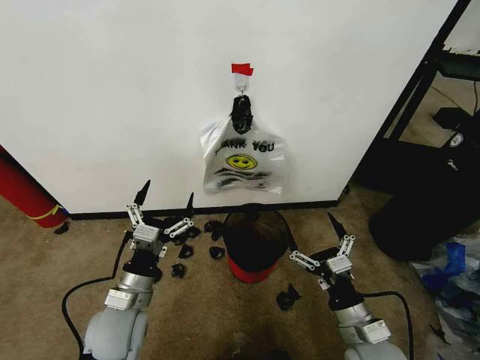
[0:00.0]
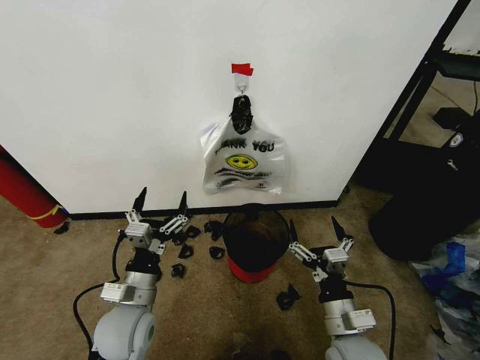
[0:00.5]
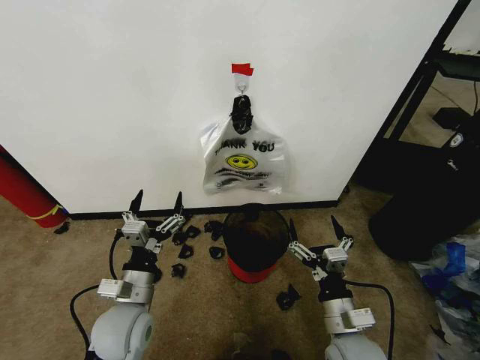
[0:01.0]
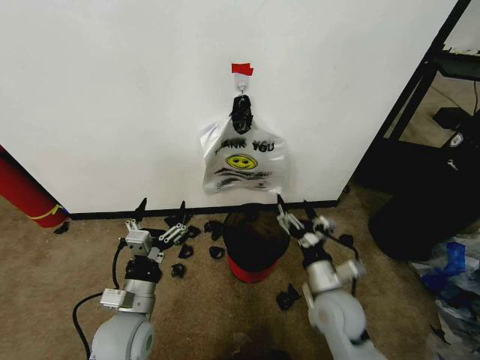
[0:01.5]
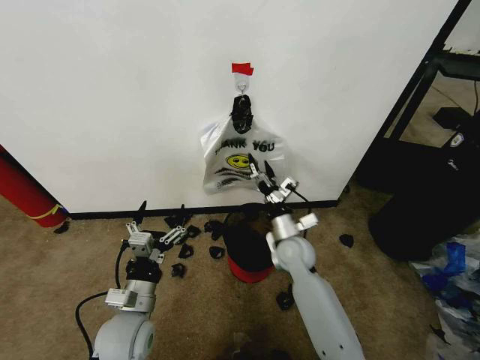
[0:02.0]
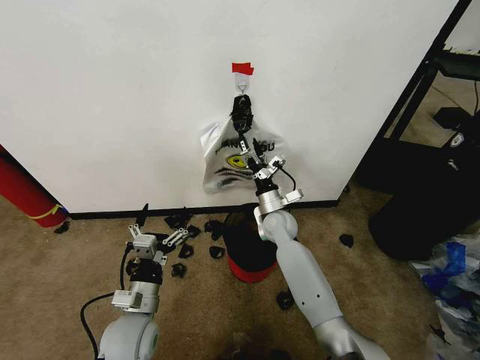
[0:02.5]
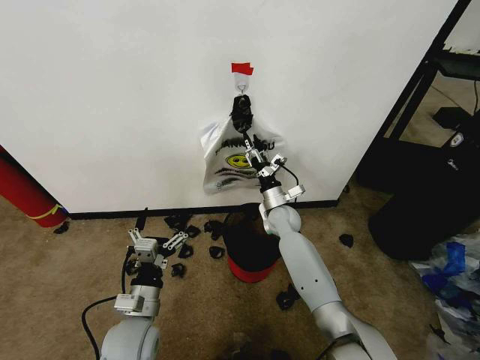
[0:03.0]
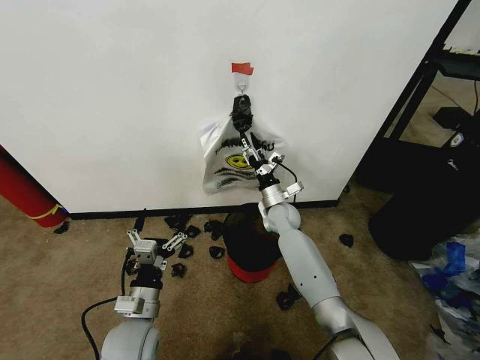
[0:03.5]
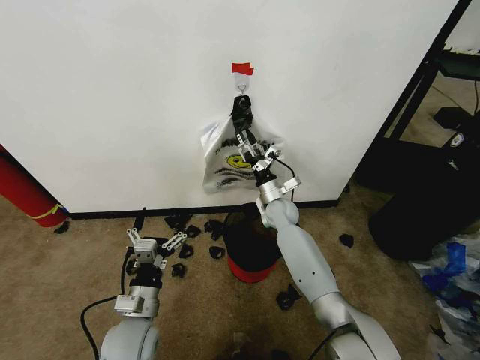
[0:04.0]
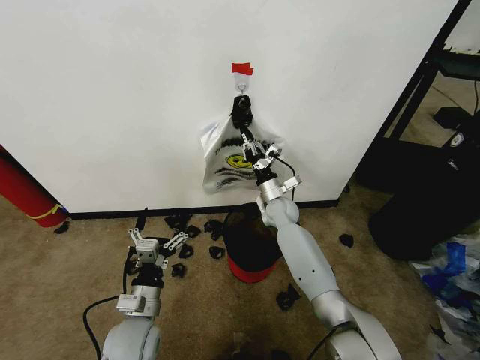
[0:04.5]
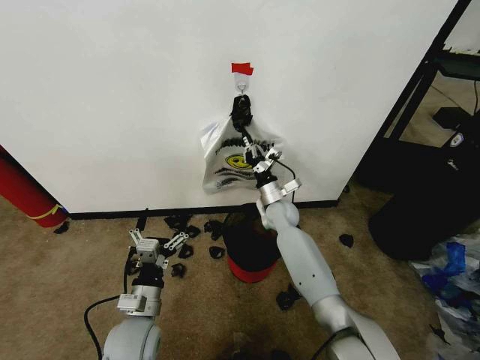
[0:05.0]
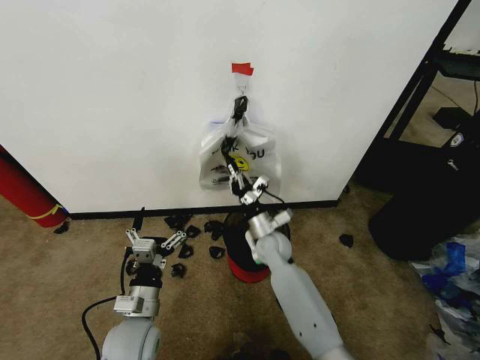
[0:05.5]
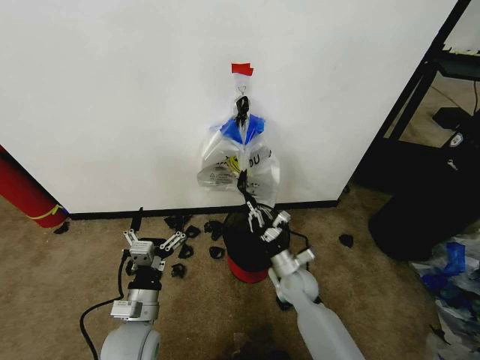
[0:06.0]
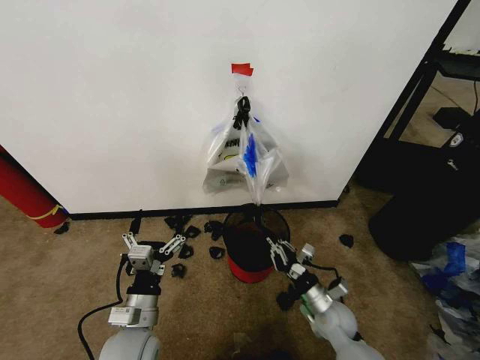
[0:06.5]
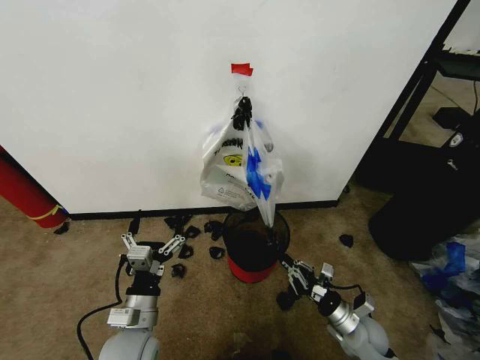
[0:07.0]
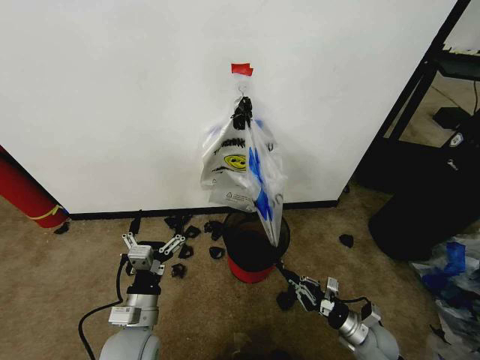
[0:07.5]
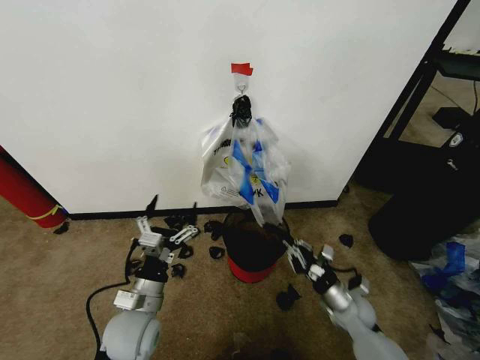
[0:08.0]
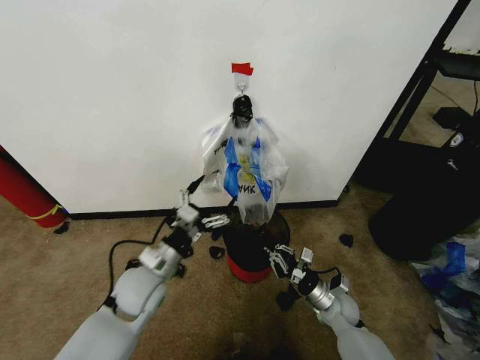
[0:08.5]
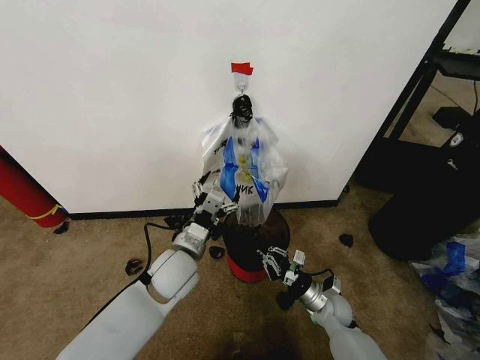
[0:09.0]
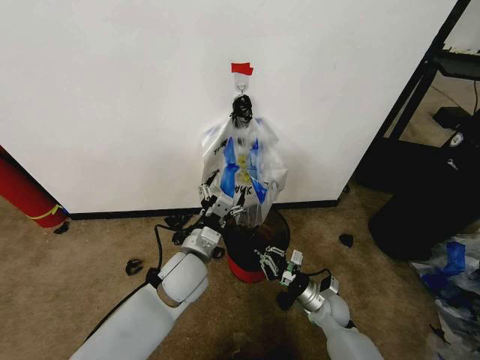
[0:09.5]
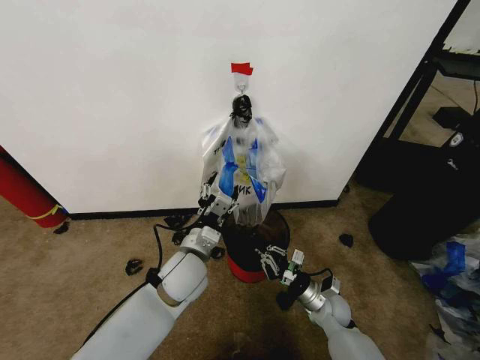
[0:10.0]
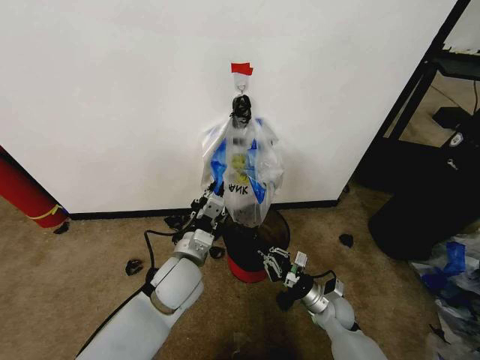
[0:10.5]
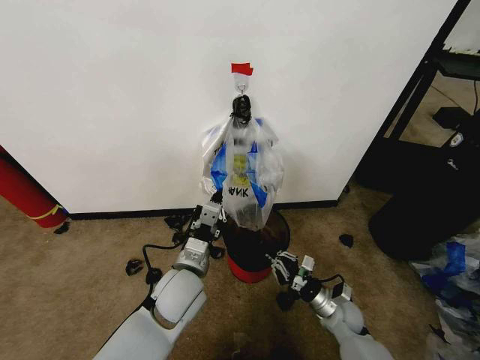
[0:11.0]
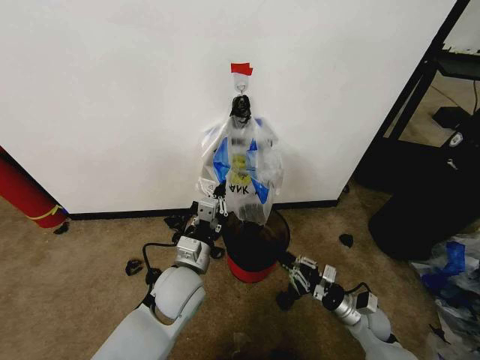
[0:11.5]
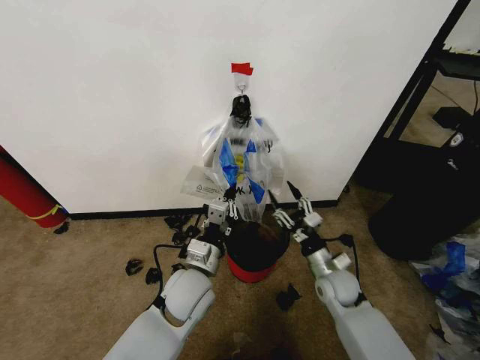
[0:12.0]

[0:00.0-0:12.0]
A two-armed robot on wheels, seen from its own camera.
Task of the whole recording: Pick up the garbage bag from the wall and place it over the trash bin.
0:02.0 to 0:04.0: The right gripper moves forward, approximately 10 cm, and closes up.
0:04.0 to 0:06.0: The right gripper shifts some 20 cm backward and downward, and closes its fingers.
0:06.0 to 0:08.0: The right gripper is displaced to the right by about 15 cm.
0:08.0 to 0:10.0: The right gripper goes roughly 5 cm to the left; the left gripper goes about 15 cm forward and to the right.
0:10.0 to 0:12.0: The right gripper travels upward by roughly 10 cm, and opens; the left gripper closes up.

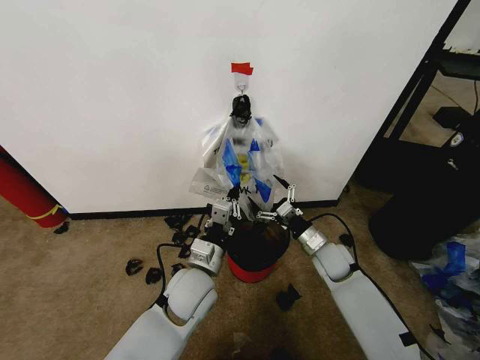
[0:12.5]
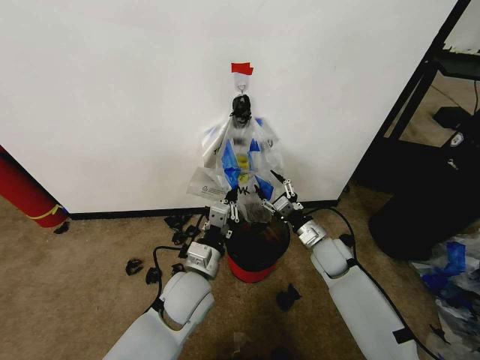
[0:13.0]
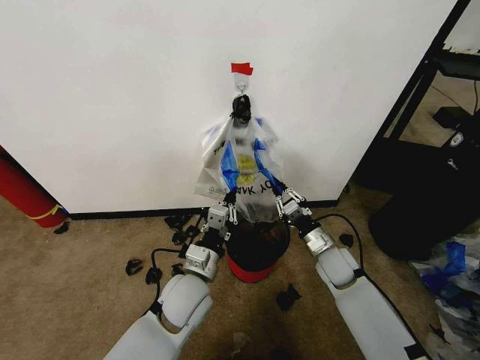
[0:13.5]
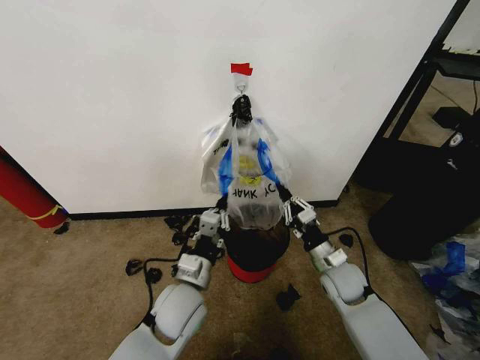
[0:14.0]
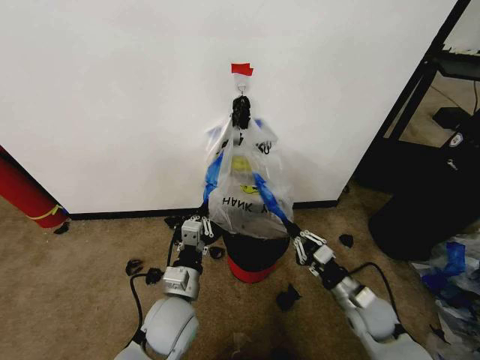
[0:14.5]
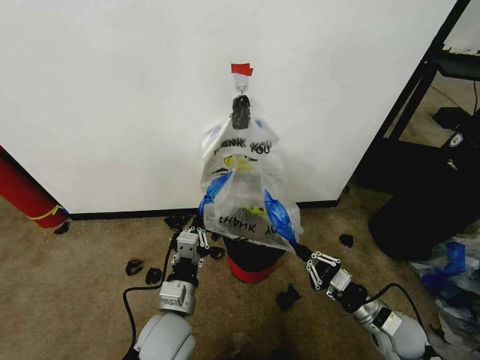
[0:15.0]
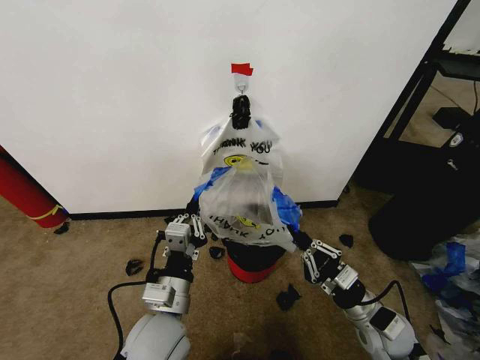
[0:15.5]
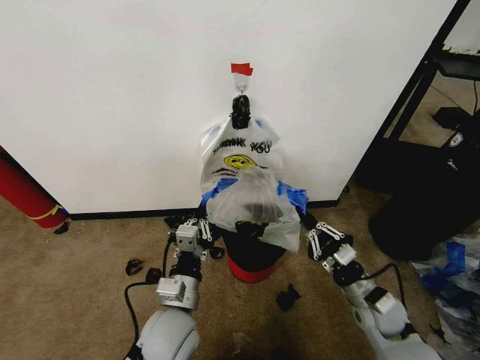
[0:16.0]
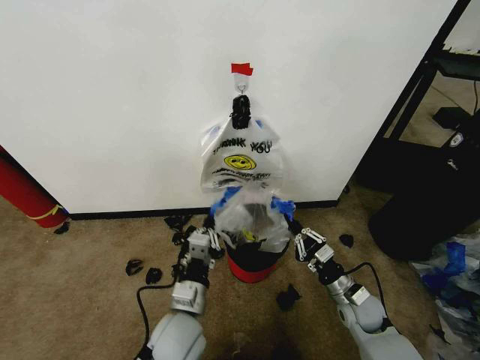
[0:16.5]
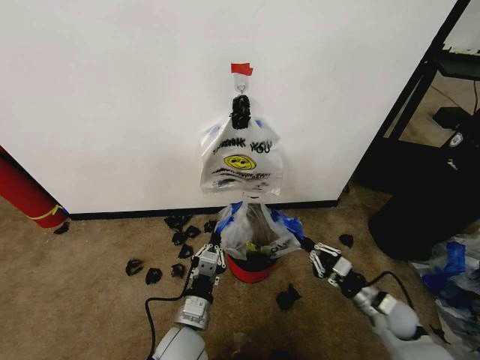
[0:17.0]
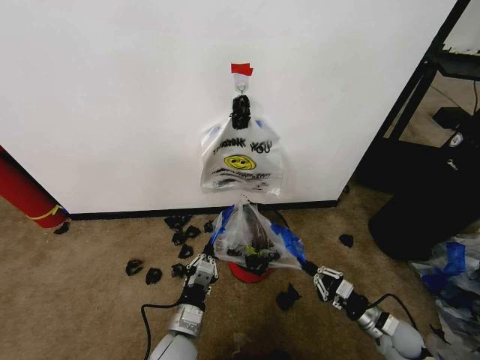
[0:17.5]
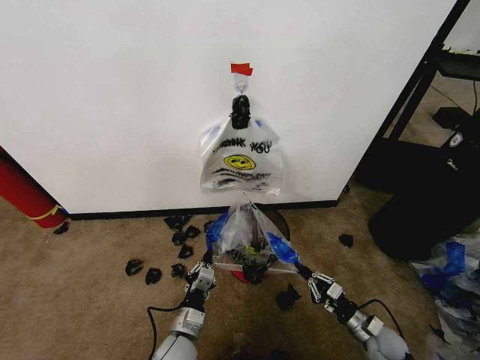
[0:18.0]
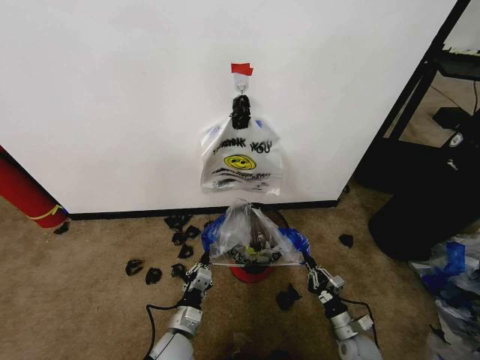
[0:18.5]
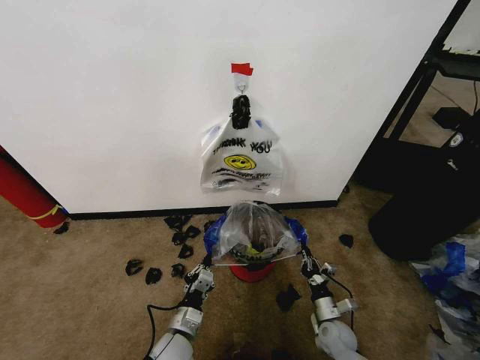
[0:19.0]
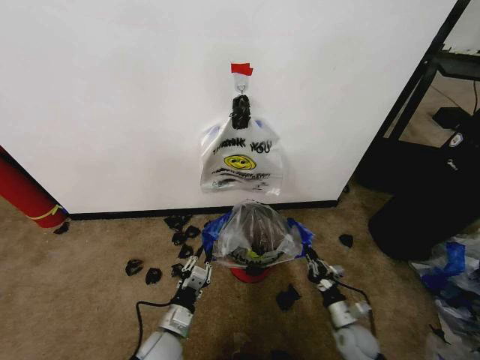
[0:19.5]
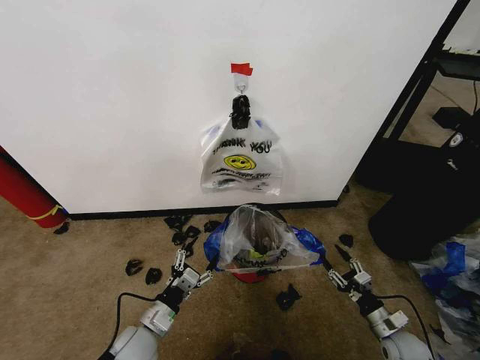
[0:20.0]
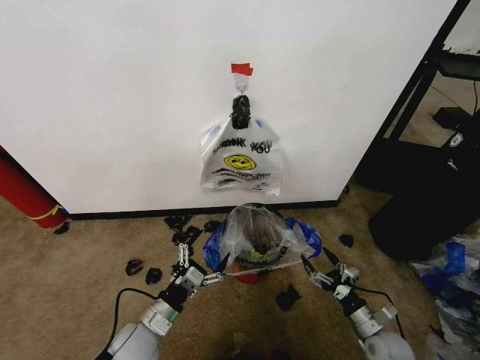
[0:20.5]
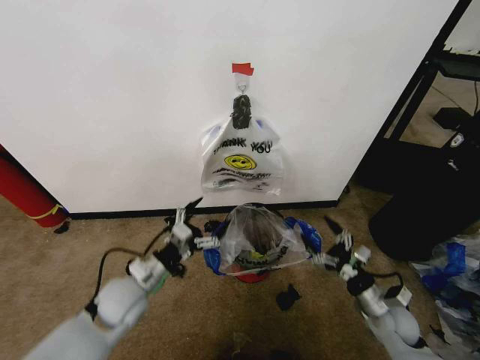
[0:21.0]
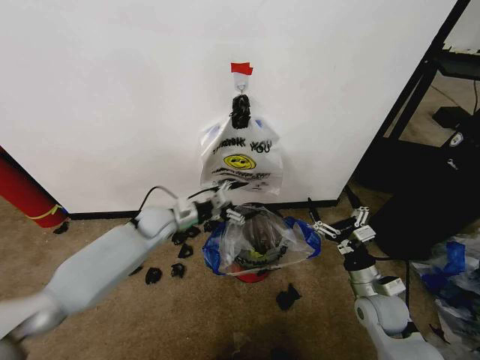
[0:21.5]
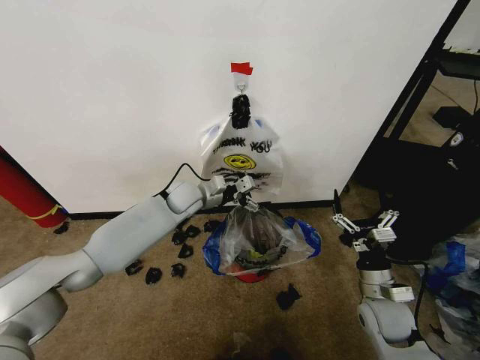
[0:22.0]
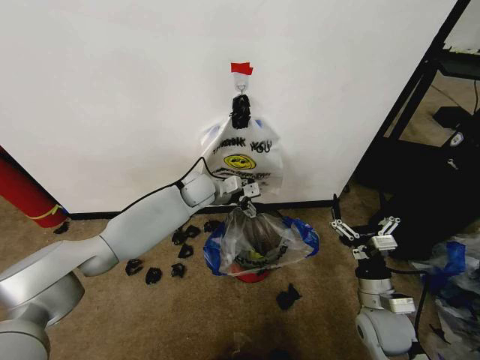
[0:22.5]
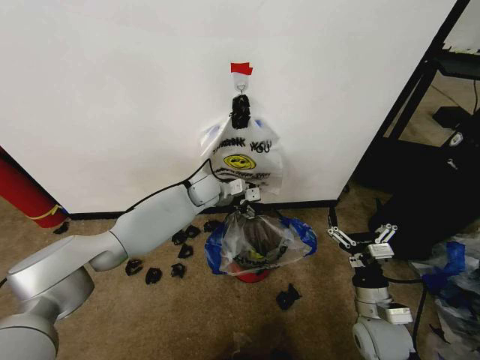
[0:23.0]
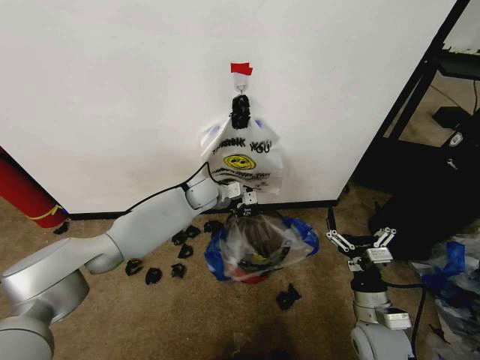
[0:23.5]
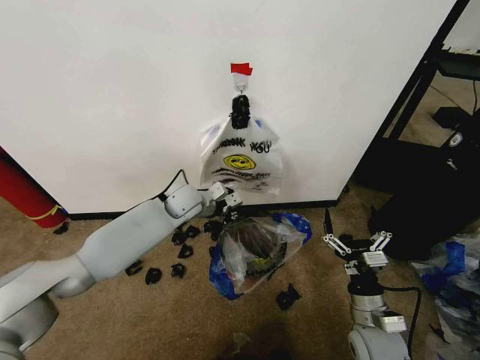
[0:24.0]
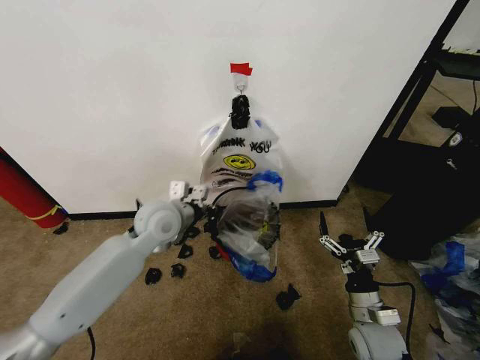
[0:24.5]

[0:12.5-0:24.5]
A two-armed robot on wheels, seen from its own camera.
Task of the whole recording: Pick up the garbage bag from the wall and place it over the trash bin.
0:12.5 to 0:14.5: The left gripper travels backward by approximately 5 cm. The right gripper shifts roughly 15 cm backward and to the right, and closes up.
0:16.5 to 0:18.5: The left gripper goes about 15 cm downward, while the right gripper shifts about 15 cm downward and backward.
0:18.5 to 0:20.5: The left gripper moves upward and to the left, about 10 cm, and opens up; the right gripper moves left and right over about 15 cm, changing direction 2 times, and opens.
0:20.5 to 0:22.5: The left gripper heads forward and upward, covering roughly 35 cm. The right gripper goes approximately 15 cm upward and to the left.
0:22.5 to 0:24.5: The left gripper is displaced backward and to the left by about 15 cm, and closes up.

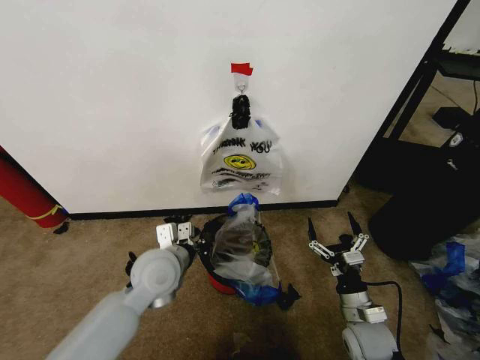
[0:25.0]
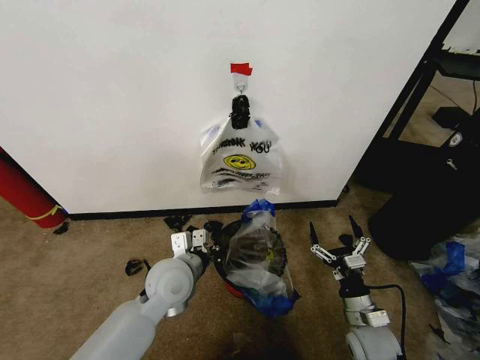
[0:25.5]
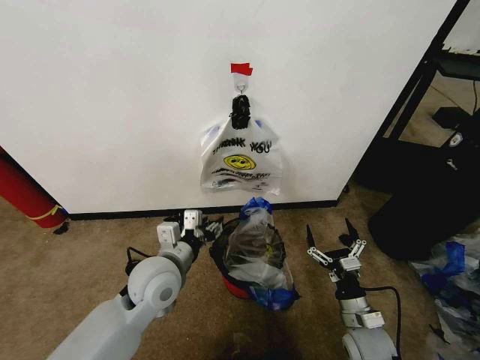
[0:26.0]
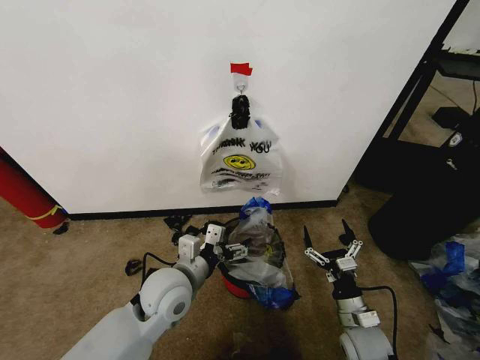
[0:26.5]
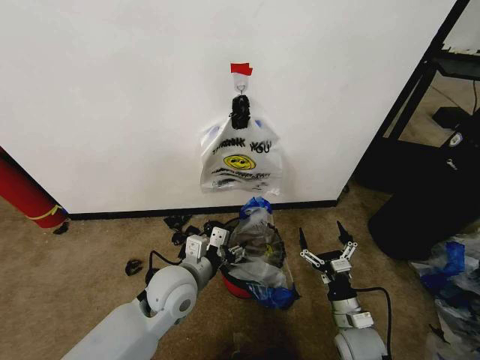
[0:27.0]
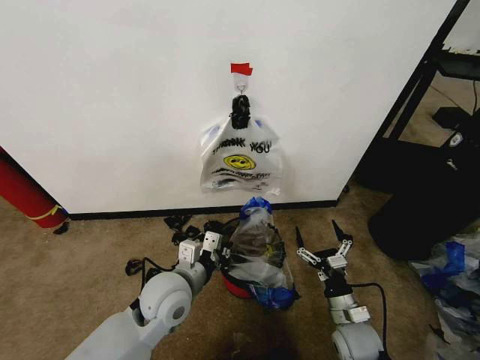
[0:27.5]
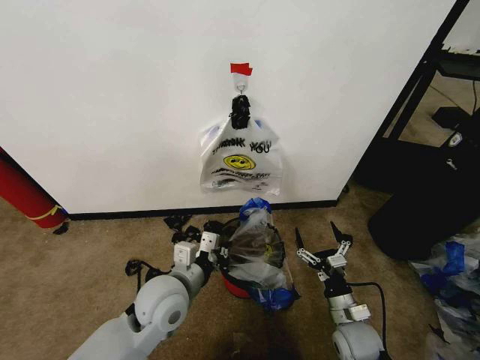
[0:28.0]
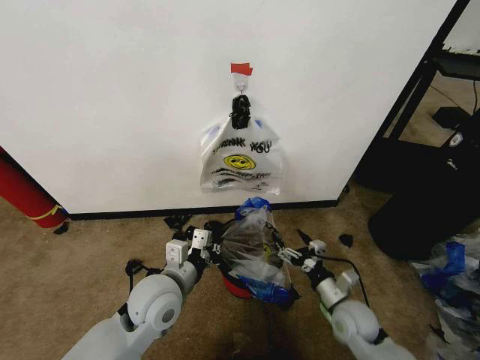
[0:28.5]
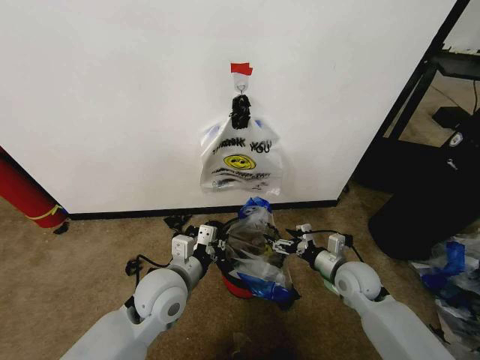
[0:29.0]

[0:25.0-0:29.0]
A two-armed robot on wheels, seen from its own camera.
Task of the whole recording: Pick up the garbage bag from the wall and place it over the trash bin.
0:25.0 to 0:27.0: The left gripper moves some 5 cm, and opens its fingers.
0:27.0 to 0:29.0: The right gripper is displaced forward and upward by about 15 cm; the left gripper closes its fingers.
